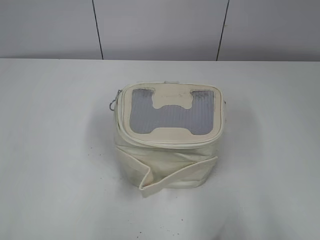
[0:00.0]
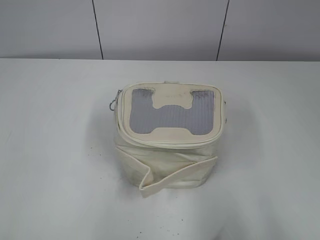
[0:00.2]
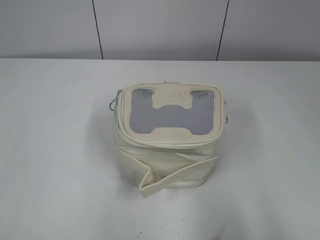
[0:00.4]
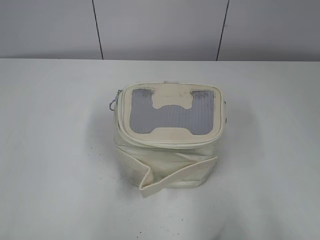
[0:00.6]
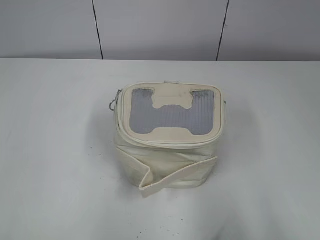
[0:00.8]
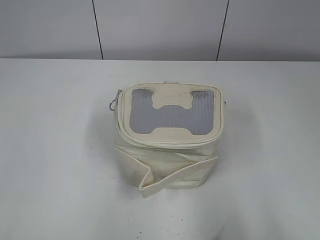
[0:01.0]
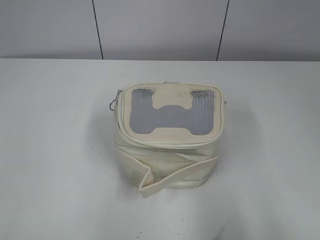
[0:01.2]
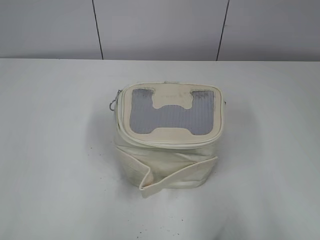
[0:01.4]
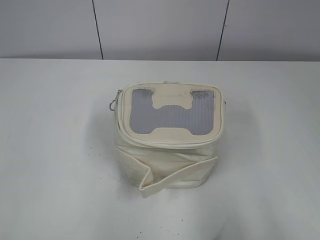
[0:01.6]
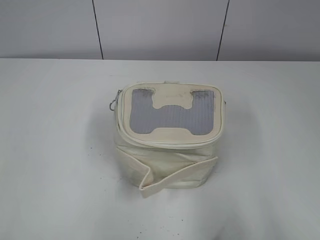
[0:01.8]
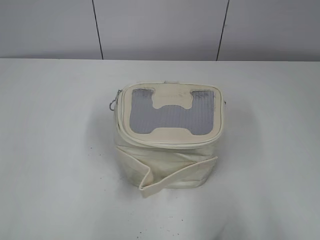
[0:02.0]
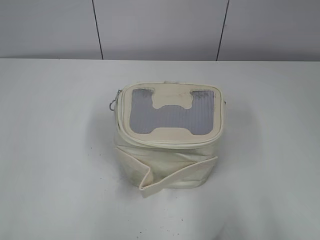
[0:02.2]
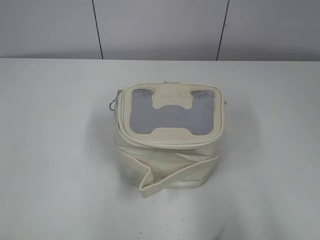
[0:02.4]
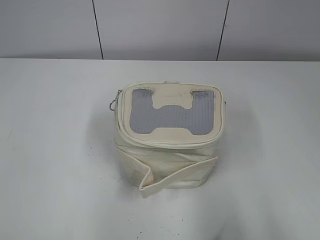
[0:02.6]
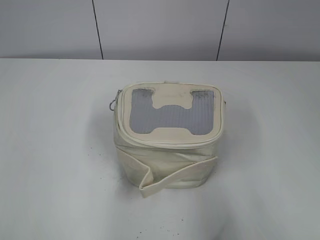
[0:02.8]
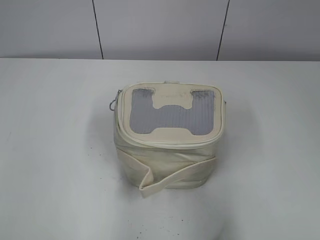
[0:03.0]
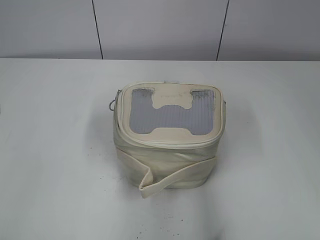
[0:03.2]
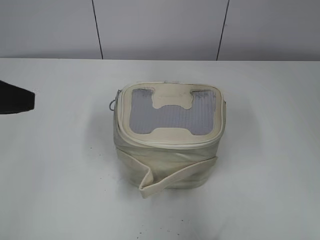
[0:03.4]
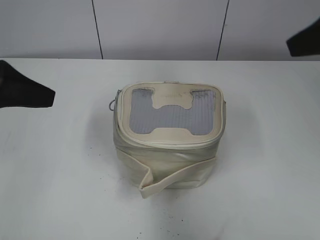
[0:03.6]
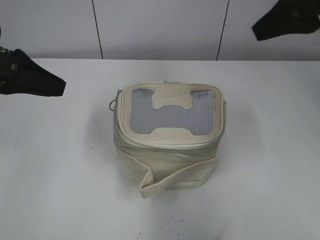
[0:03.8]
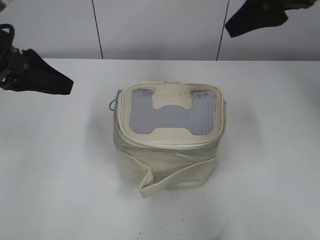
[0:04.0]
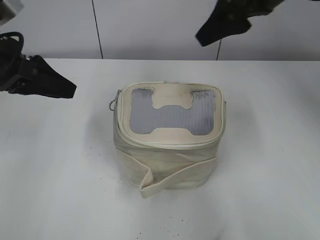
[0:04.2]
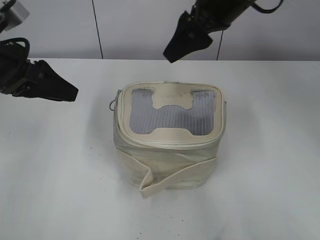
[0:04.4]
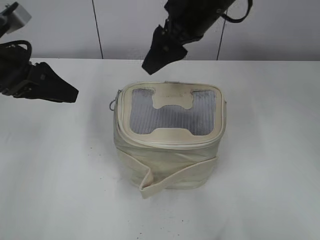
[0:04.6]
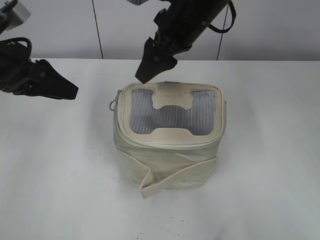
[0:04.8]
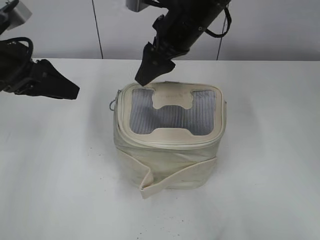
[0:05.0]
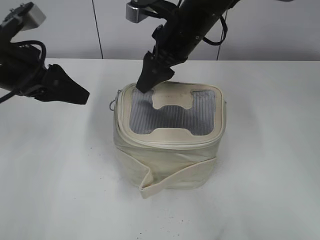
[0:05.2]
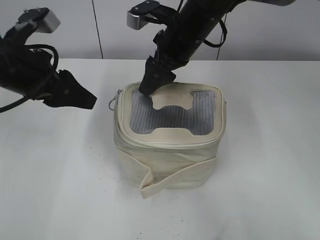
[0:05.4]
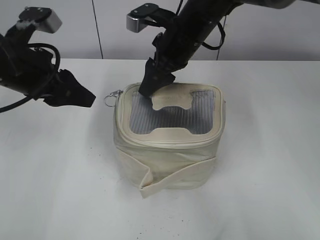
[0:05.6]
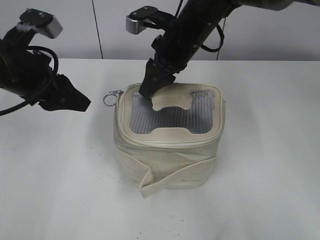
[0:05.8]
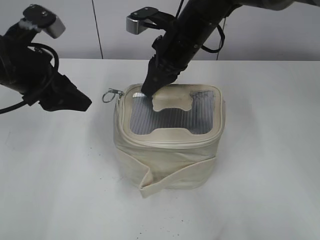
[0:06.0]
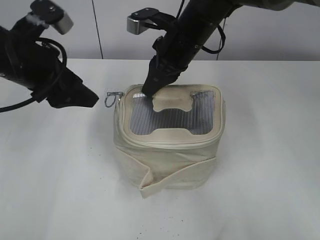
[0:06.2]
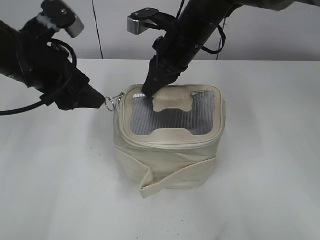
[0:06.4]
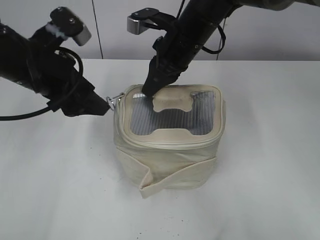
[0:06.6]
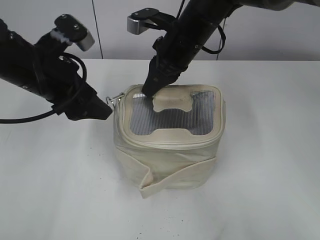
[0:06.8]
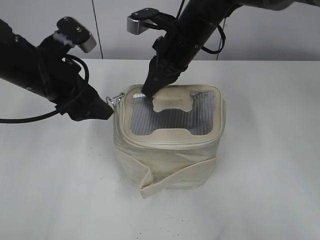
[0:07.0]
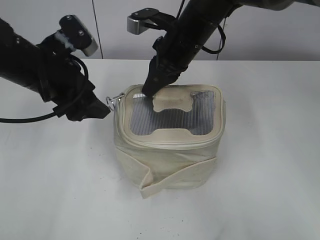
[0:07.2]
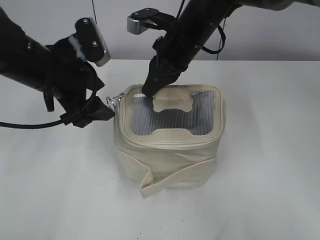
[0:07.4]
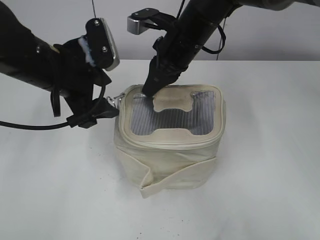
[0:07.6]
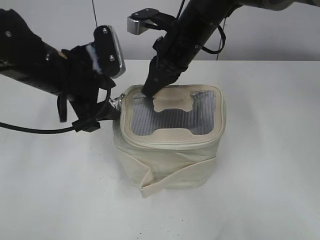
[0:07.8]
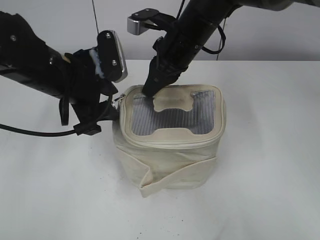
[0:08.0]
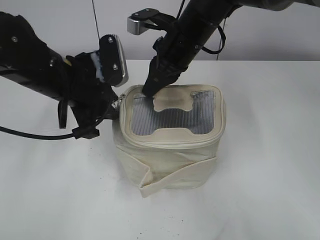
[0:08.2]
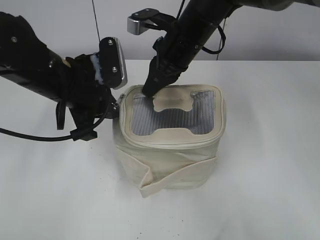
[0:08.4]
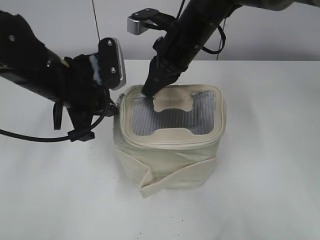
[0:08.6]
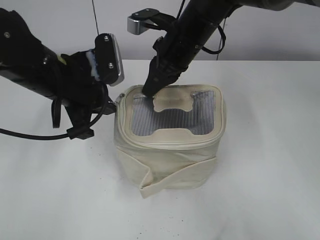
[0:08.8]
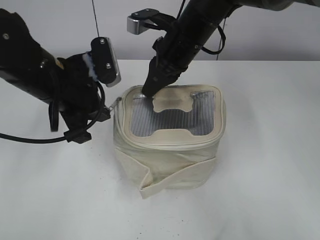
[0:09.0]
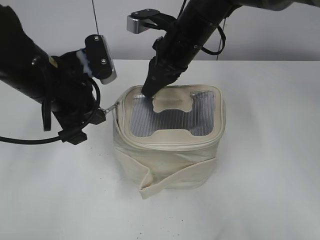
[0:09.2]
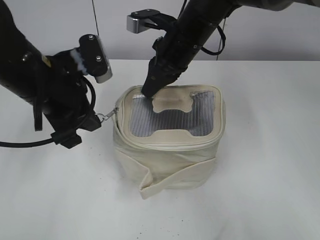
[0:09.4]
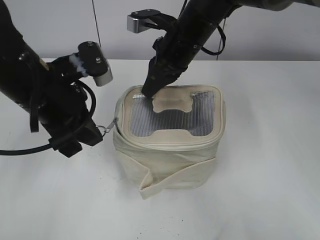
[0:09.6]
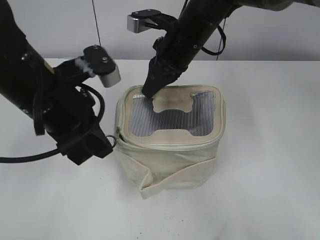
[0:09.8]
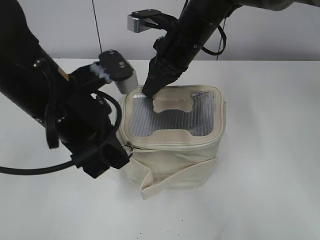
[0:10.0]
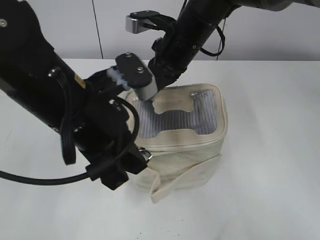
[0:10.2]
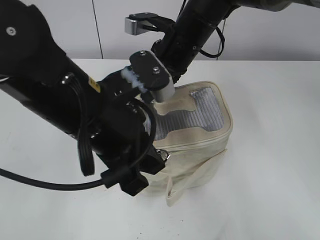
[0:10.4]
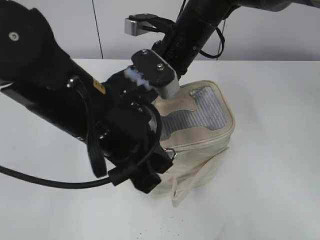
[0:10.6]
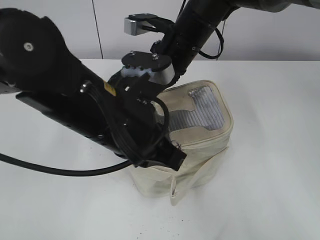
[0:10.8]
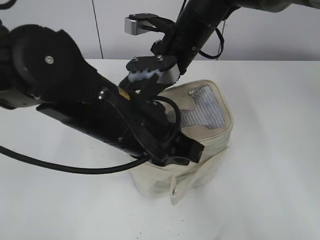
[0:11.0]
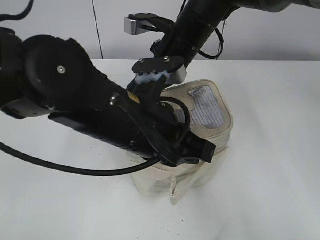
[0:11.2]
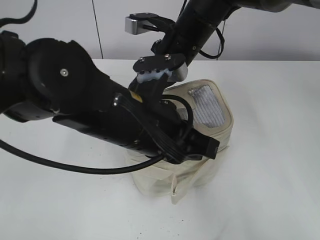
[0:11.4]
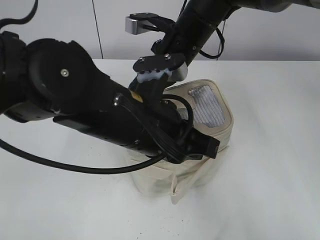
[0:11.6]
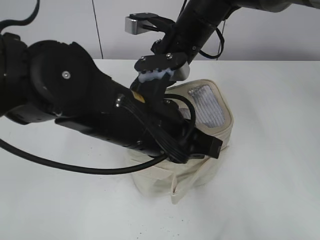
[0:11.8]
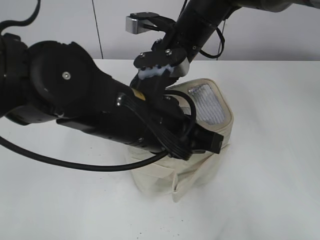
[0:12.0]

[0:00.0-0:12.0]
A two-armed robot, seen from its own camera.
0:01.6 to 0:03.0: The grippers both shift forward by approximately 5 cm.
0:03.0 to 0:04.4: The left gripper is displaced forward by roughly 20 cm. The right gripper heads forward and to the left, covering some 35 cm.
0:04.4 to 0:06.0: The right gripper heads downward and to the left, covering roughly 10 cm, and closes its fingers.
0:06.0 to 0:07.6: The left gripper moves to the right, approximately 5 cm.
0:07.6 to 0:09.0: The left gripper closes its fingers.
0:09.0 to 0:10.4: The left gripper heads backward and to the right, covering some 10 cm.
0:10.4 to 0:12.0: The left gripper ends up approximately 5 cm from where it was.

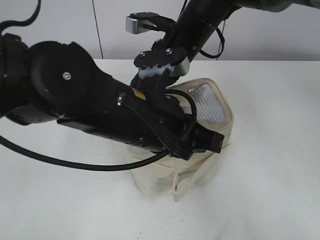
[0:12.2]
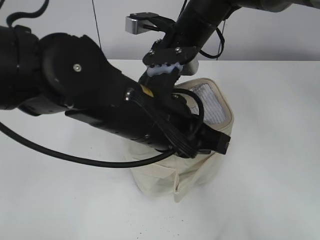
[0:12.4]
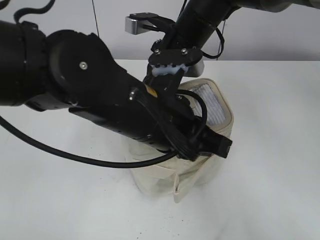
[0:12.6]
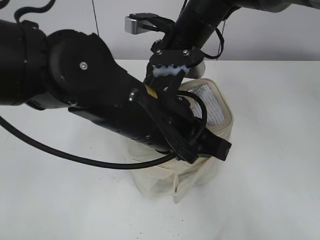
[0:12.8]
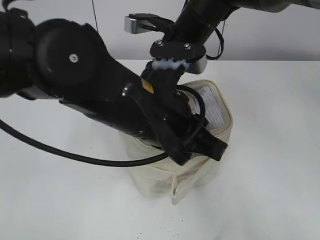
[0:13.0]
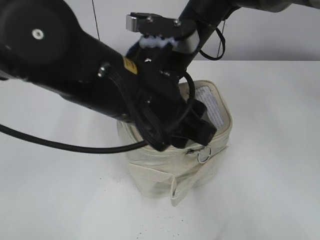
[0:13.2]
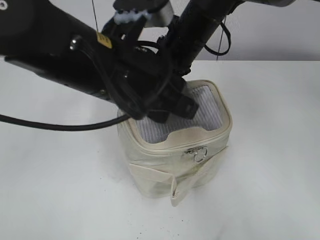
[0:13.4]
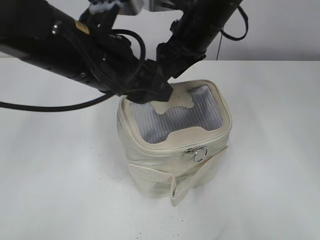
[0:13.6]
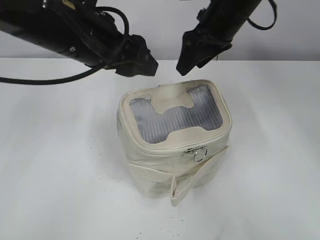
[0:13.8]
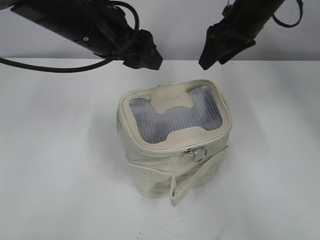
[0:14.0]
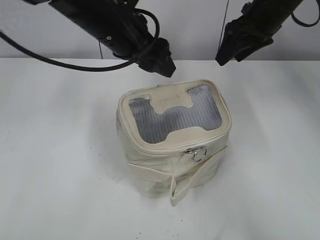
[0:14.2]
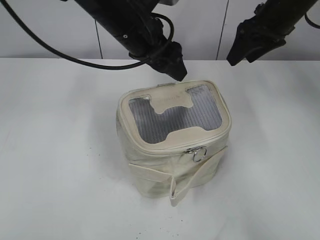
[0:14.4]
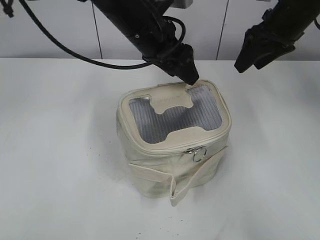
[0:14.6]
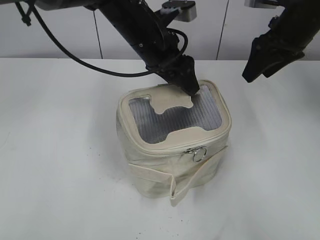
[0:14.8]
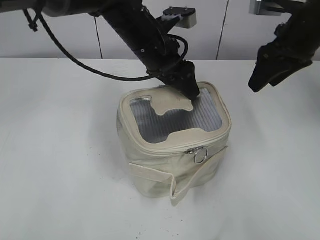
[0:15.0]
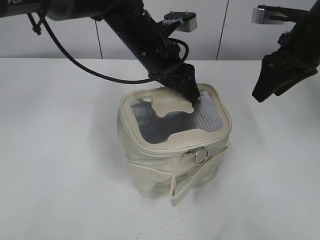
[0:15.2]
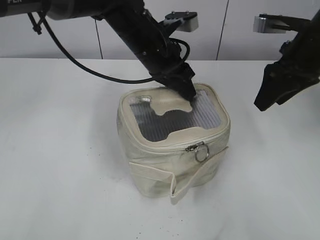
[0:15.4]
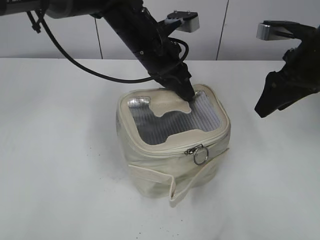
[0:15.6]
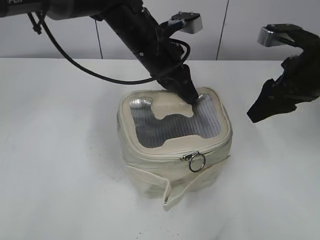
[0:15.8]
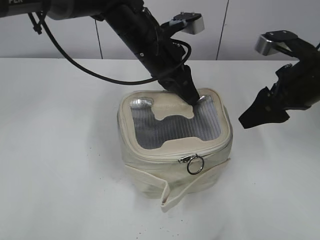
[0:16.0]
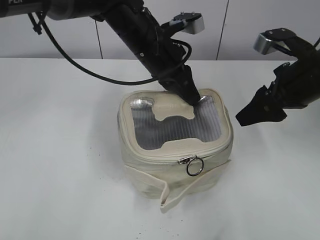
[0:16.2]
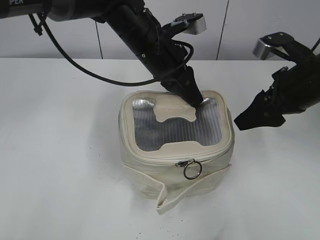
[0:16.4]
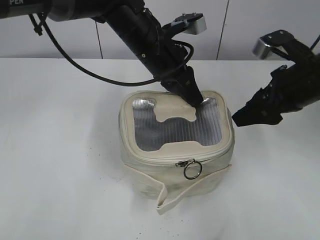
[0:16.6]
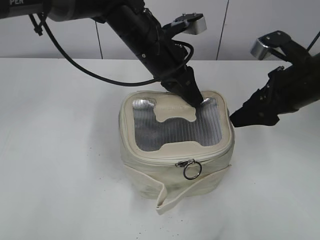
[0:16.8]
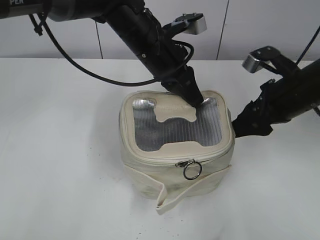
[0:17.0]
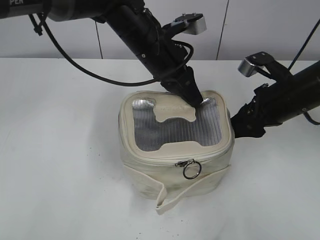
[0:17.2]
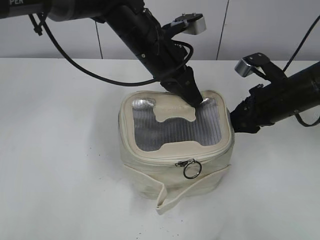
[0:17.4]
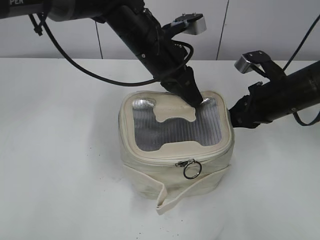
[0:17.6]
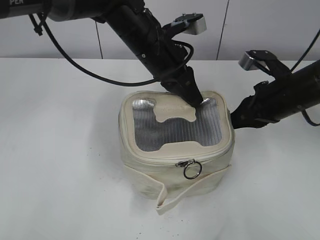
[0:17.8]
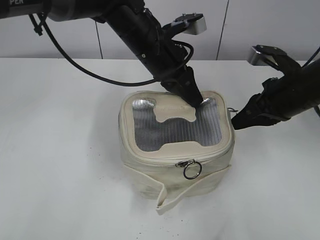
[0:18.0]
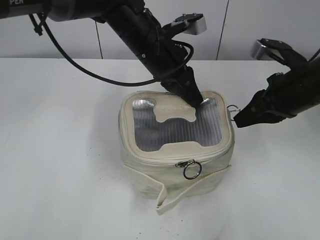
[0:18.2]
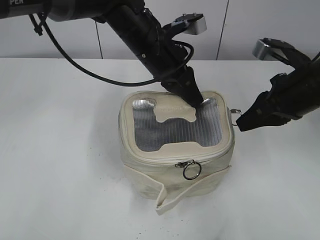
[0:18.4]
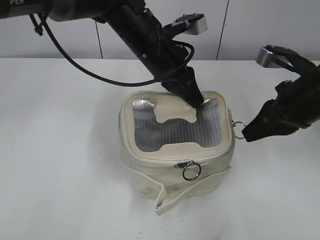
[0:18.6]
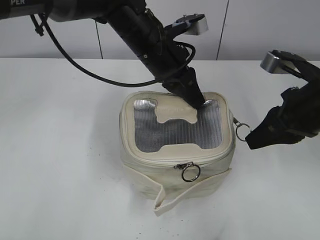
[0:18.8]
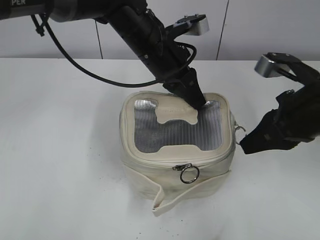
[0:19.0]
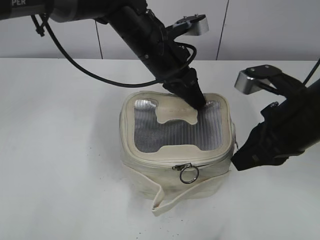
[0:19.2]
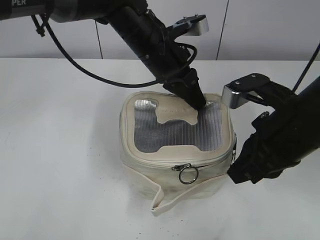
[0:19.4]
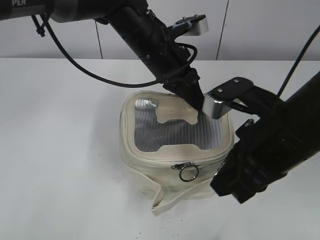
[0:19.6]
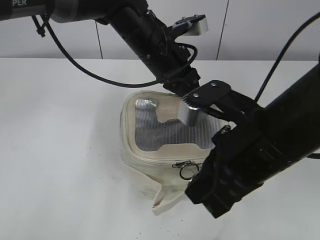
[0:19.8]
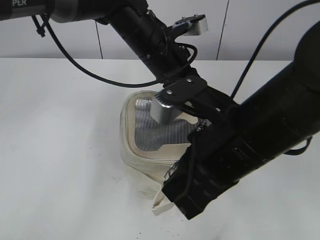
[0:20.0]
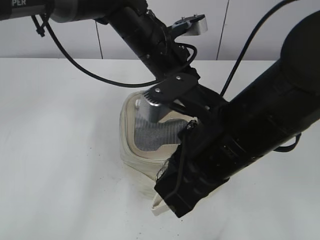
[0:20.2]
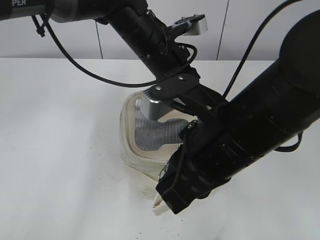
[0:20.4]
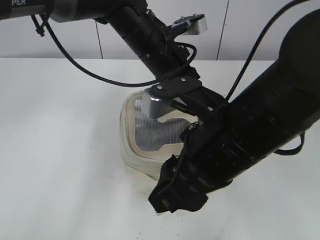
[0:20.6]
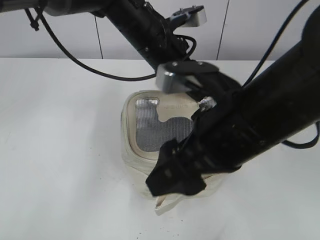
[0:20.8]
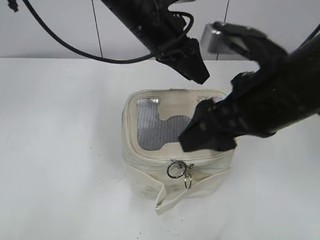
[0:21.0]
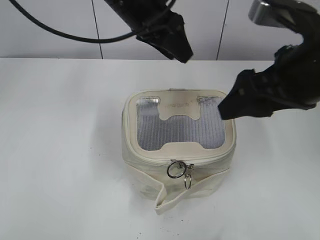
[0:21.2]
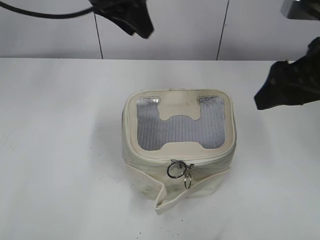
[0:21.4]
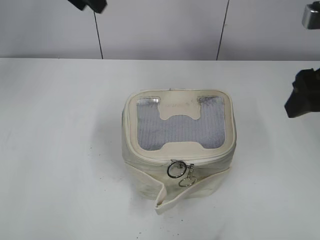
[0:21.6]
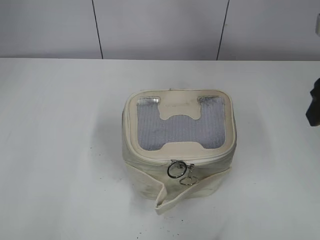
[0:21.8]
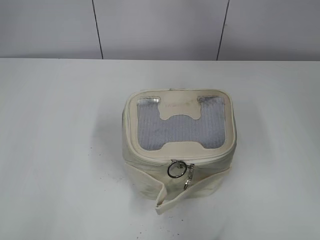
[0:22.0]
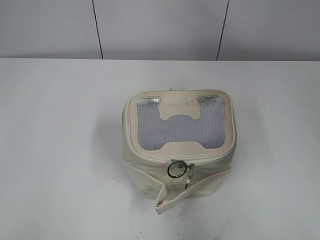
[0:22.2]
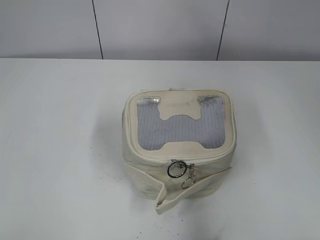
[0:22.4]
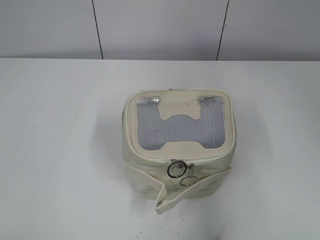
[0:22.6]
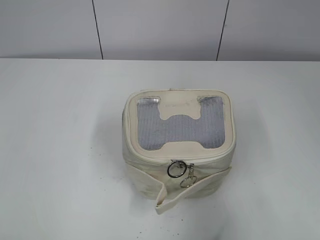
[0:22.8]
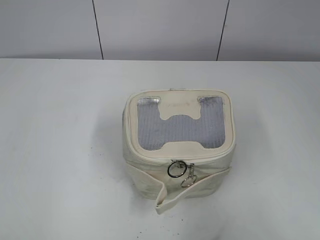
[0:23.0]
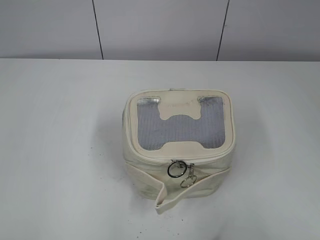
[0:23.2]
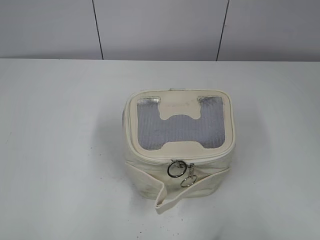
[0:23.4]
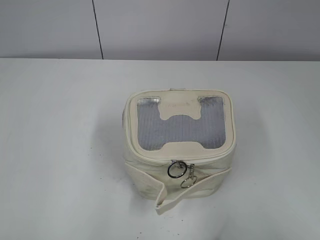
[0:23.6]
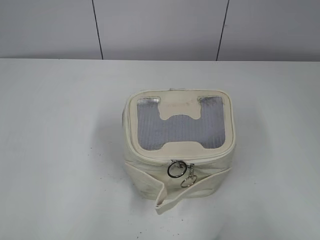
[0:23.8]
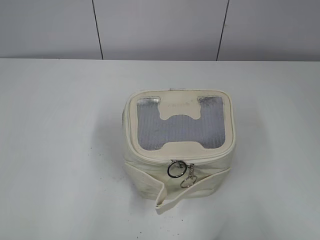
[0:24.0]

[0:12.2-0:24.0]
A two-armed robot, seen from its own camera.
Step, 0:13.0 to 0:13.6: Hold the bag with your right hand.
Step, 0:13.8 to 0:19.8: Zip up the bag with your right hand.
Step, 0:20.0 to 0:20.8: Hold the bag with your left hand.
0:12.2 to 0:13.6: The left gripper heads to the left and upward, covering about 5 cm, and opens. Meanwhile the right gripper opens its fingers.
0:13.6 to 0:15.2: The left gripper travels forward, to the right and downward by about 15 cm, while the right gripper heads to the right, covering about 15 cm.
0:15.2 to 0:16.6: The right gripper heads backward, covering roughly 5 cm. Meanwhile the left gripper closes its fingers.
0:16.6 to 0:18.2: The right gripper closes.
0:18.2 to 0:19.6: The right gripper goes roughly 15 cm backward and to the left.
0:19.6 to 0:21.0: The left gripper opens, while the right gripper moves approximately 5 cm, and opens up.
0:21.0 to 0:22.6: The right gripper is displaced to the right, backward and upward by roughly 20 cm; the left gripper travels to the left, backward and upward by approximately 40 cm.
0:22.6 to 0:24.0: The right gripper is displaced backward and downward by some 10 cm, while the left gripper is displaced downward and backward by roughly 20 cm.
